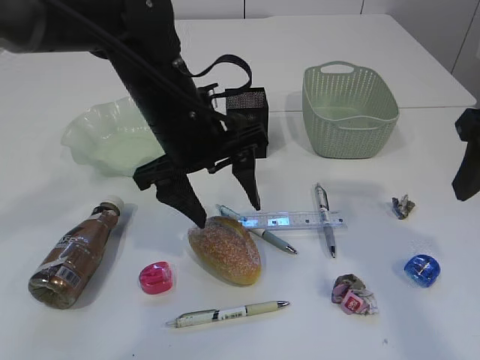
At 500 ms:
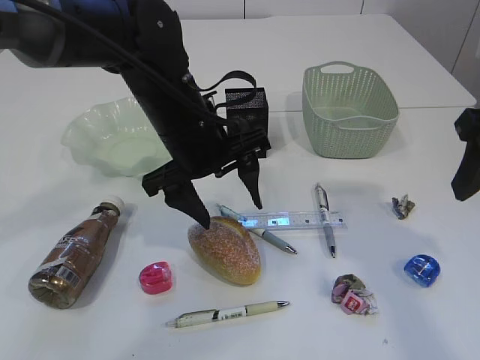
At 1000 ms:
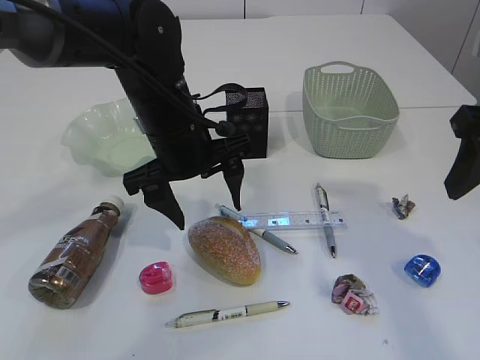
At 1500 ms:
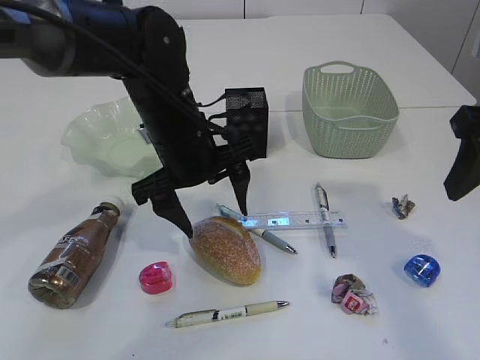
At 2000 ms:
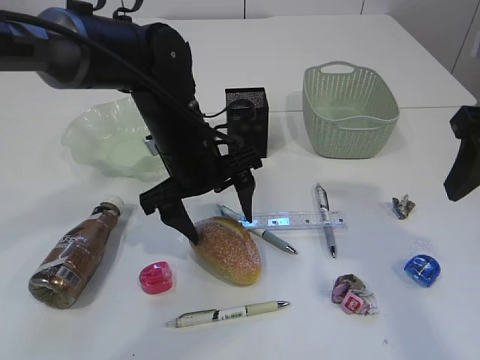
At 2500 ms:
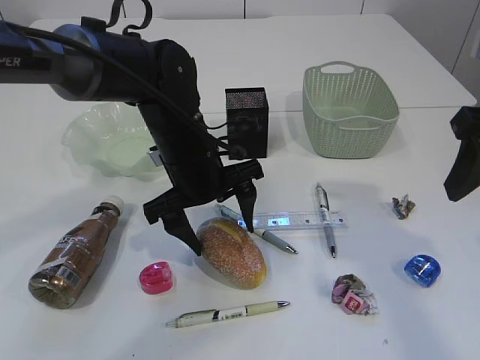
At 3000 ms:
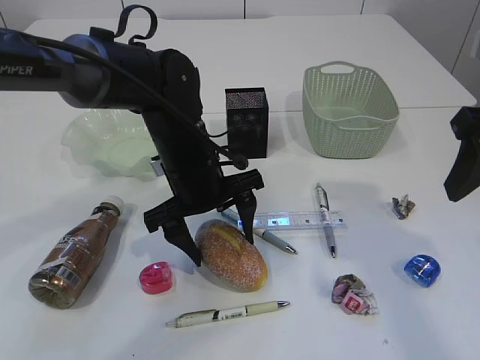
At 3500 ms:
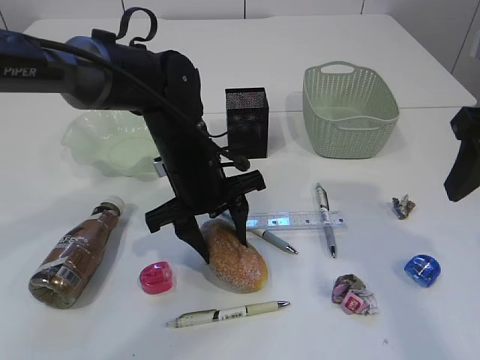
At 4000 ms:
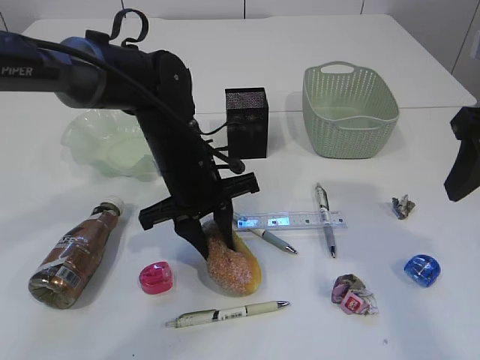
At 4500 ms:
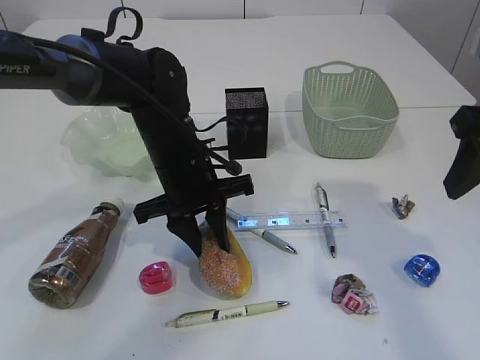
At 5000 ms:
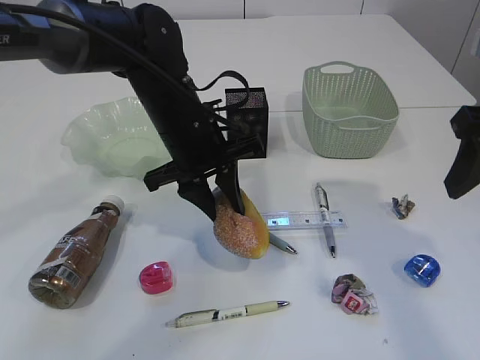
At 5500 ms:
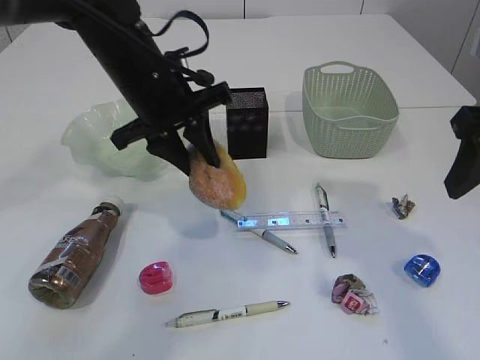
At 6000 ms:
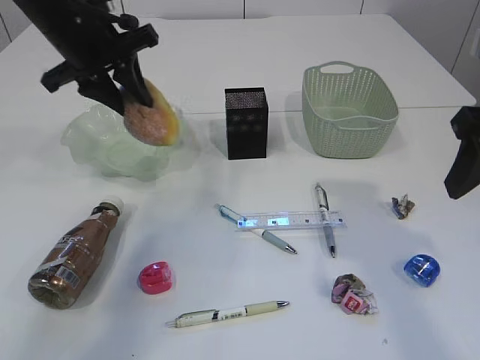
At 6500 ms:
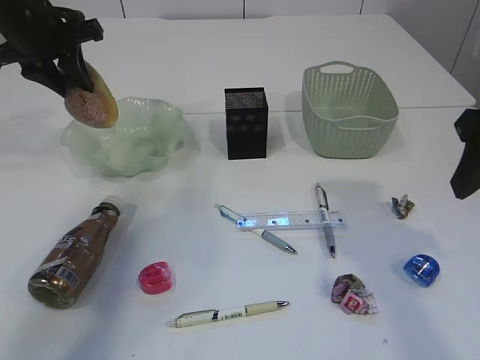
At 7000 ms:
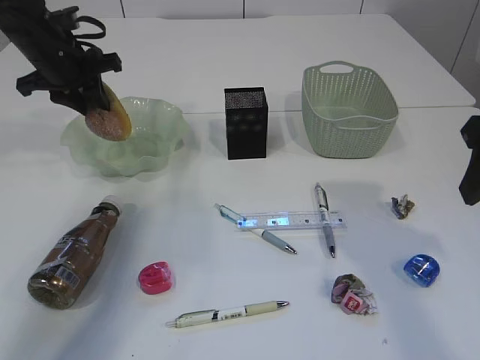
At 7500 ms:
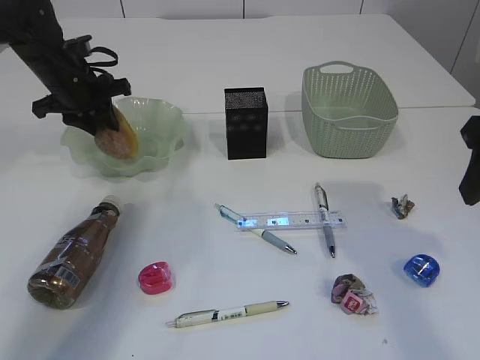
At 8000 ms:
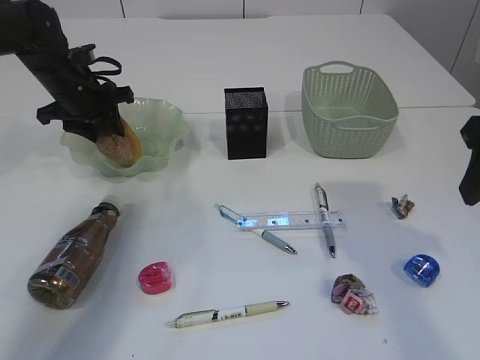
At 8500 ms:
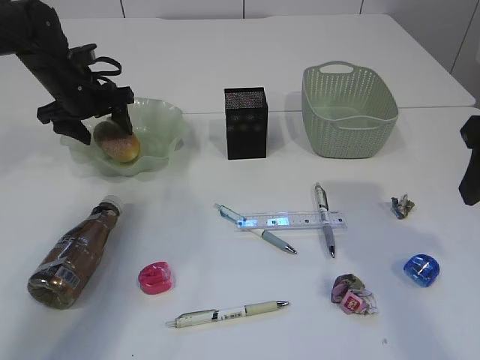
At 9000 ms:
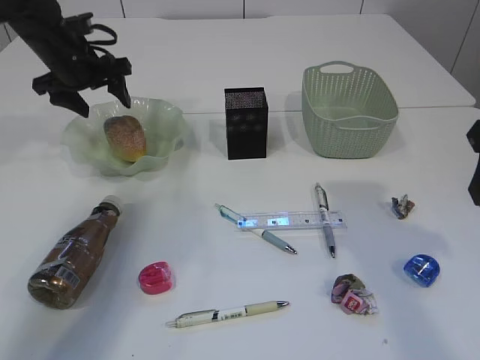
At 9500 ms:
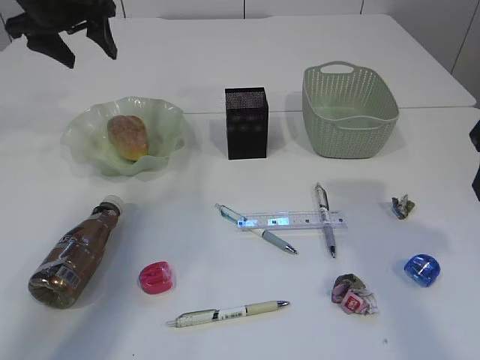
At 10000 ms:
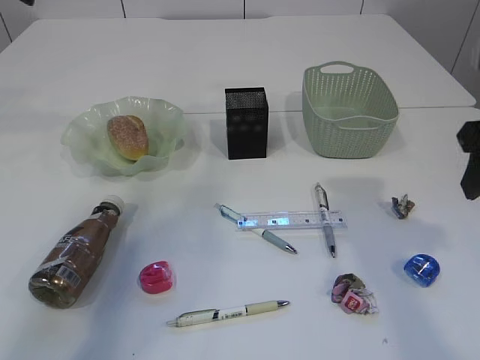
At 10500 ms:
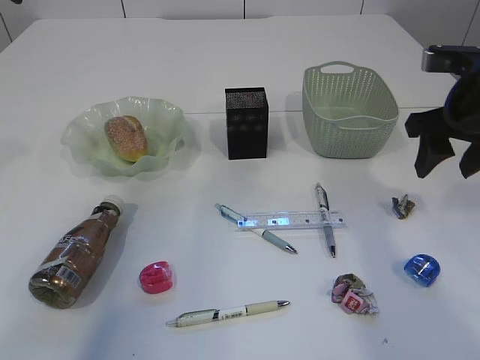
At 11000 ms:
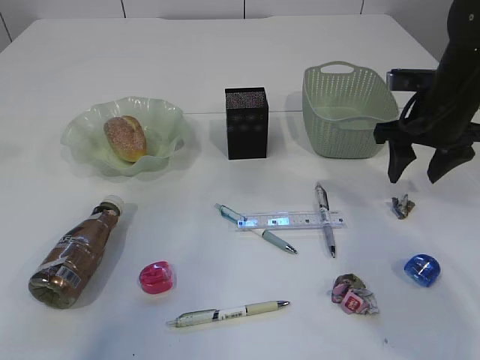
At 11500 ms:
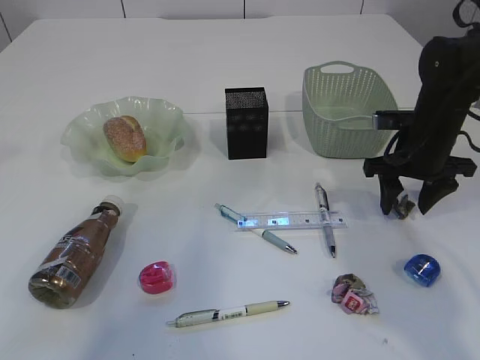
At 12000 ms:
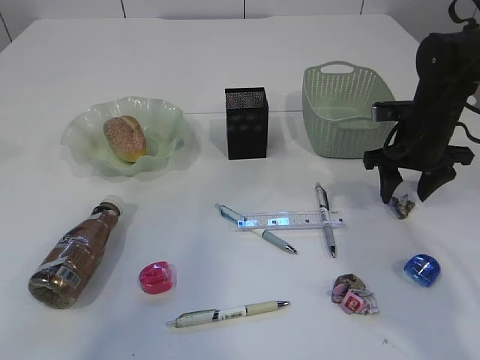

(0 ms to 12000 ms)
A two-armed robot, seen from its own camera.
Step, 6000 ms - 9000 ms: place the bread in the plate.
0 ms - 2000 ms: The left gripper moves some 5 cm.
2000 ms - 4000 ms: The left gripper closes its fingers.
4000 ms - 6000 ms: The left gripper goes roughly 20 cm upward, to the left and forward.
6000 ms - 8000 ms: The left gripper goes approximately 15 cm downward, forward and to the left.
8000 ms - 10000 ms: The left gripper is displaced upward by roughly 20 cm, and opens up.
10000 ms - 12000 ms: The right gripper shifts about 20 cm forward and downward. The left gripper shifts some 10 cm backward.

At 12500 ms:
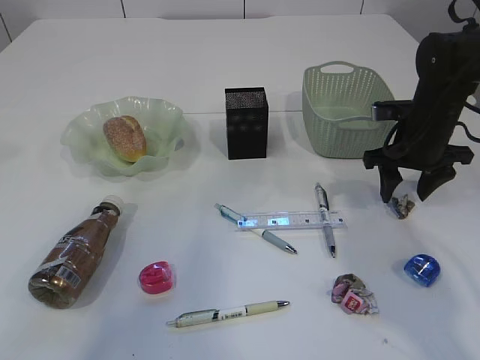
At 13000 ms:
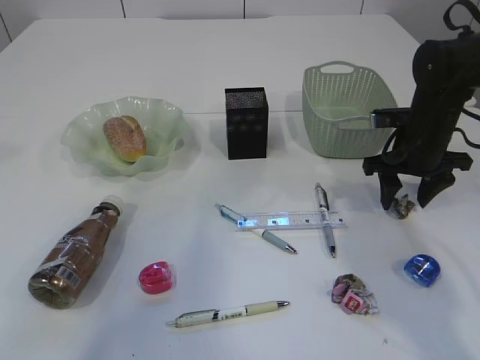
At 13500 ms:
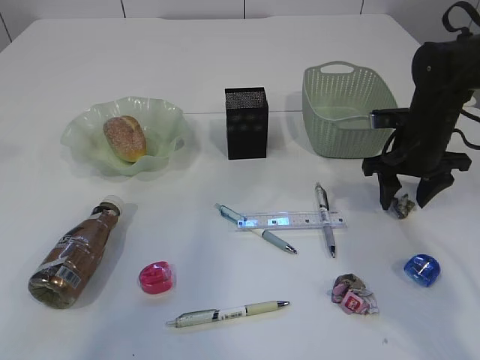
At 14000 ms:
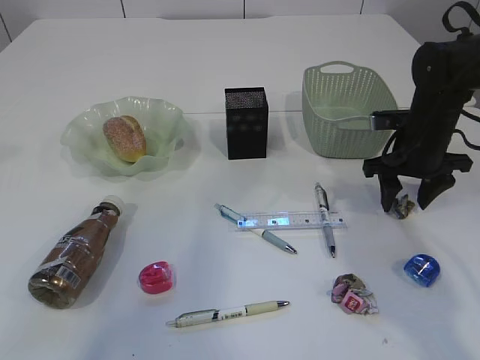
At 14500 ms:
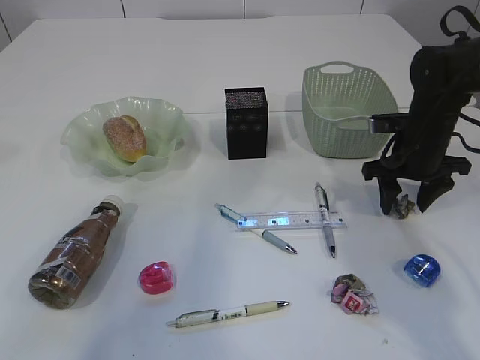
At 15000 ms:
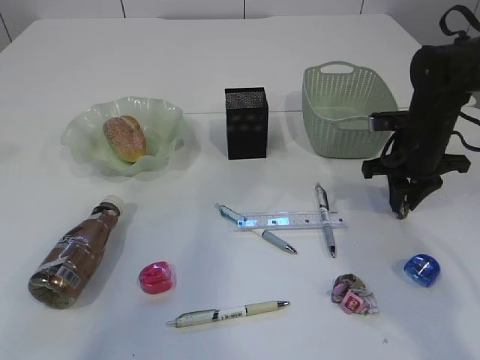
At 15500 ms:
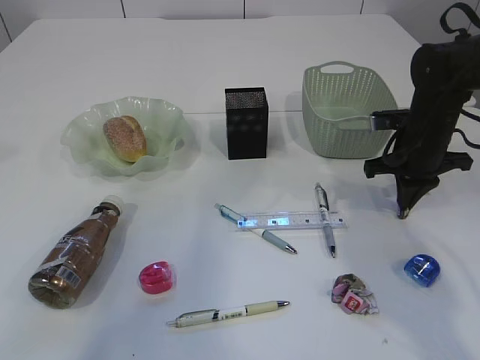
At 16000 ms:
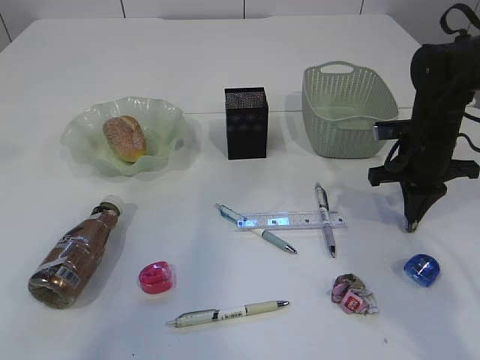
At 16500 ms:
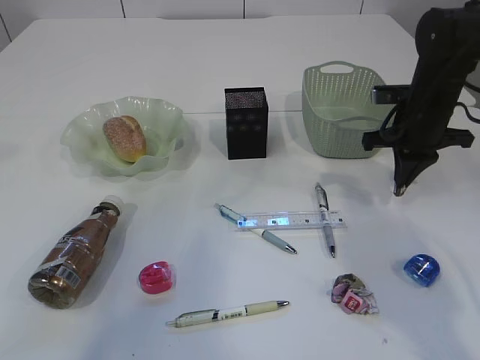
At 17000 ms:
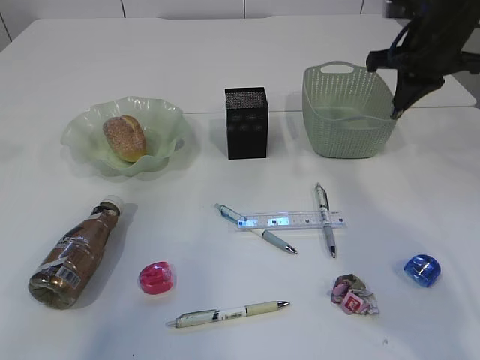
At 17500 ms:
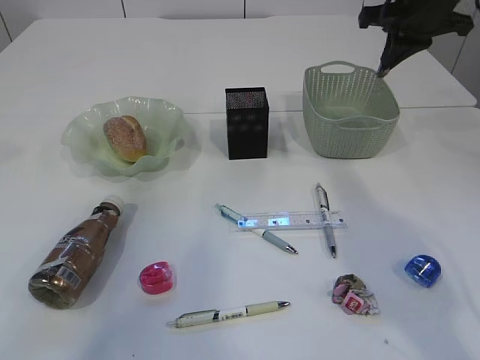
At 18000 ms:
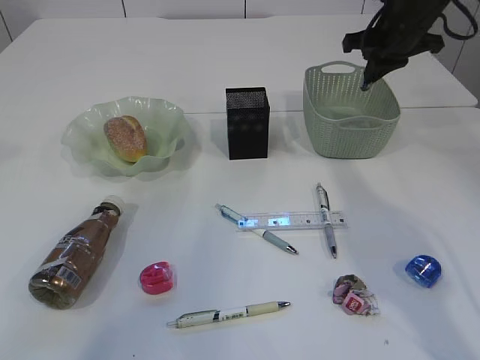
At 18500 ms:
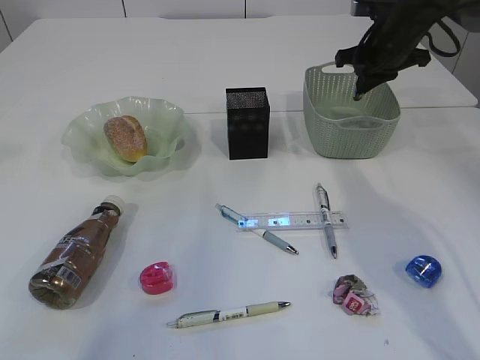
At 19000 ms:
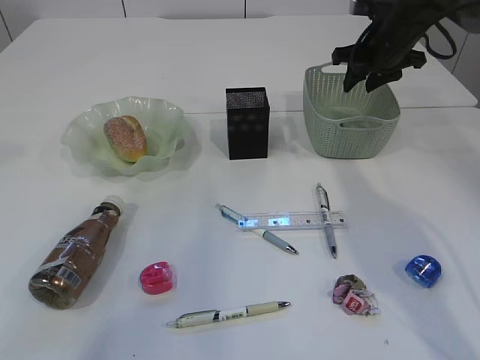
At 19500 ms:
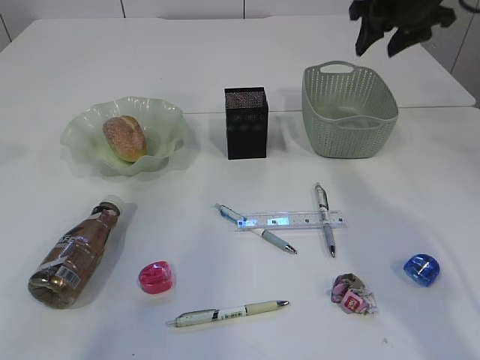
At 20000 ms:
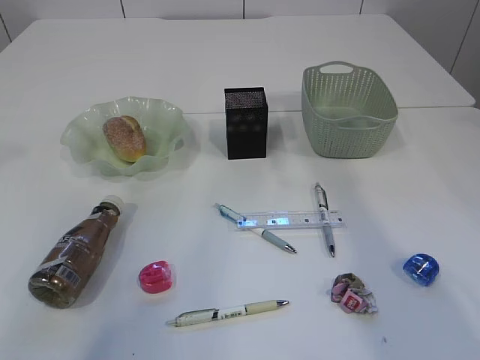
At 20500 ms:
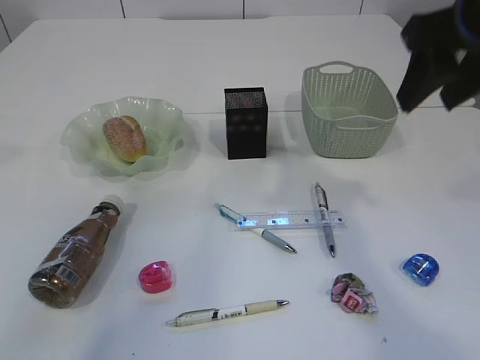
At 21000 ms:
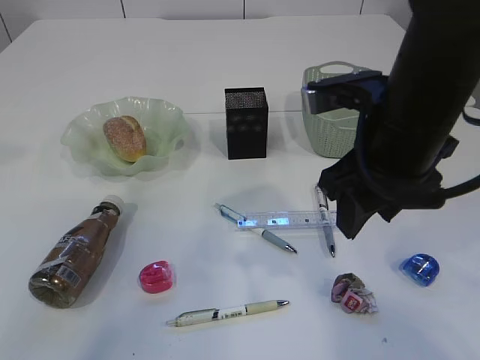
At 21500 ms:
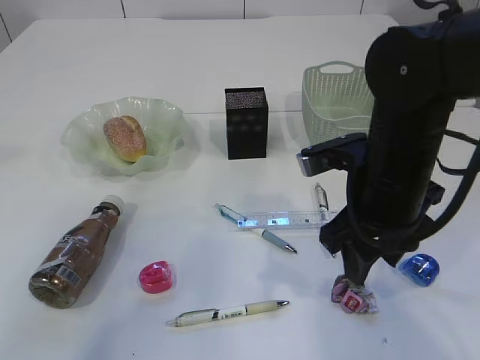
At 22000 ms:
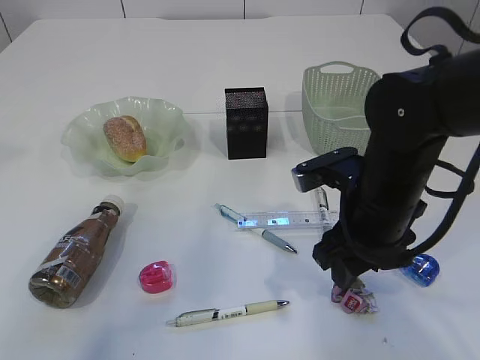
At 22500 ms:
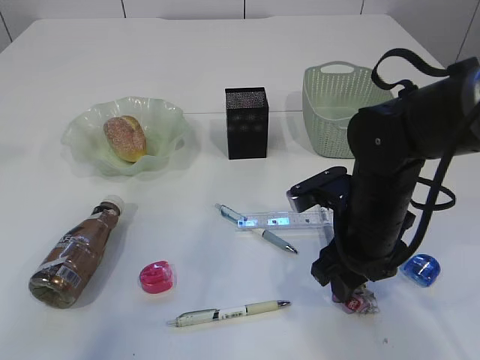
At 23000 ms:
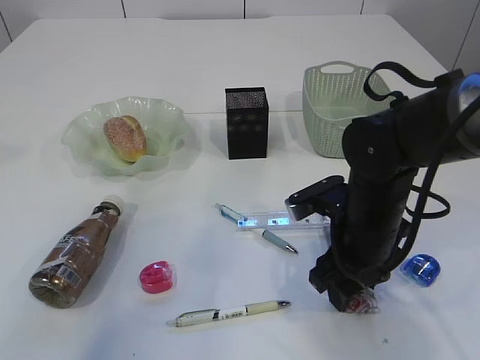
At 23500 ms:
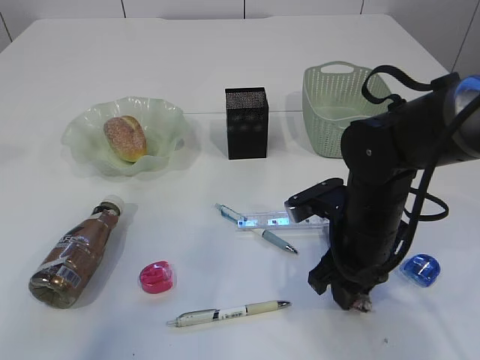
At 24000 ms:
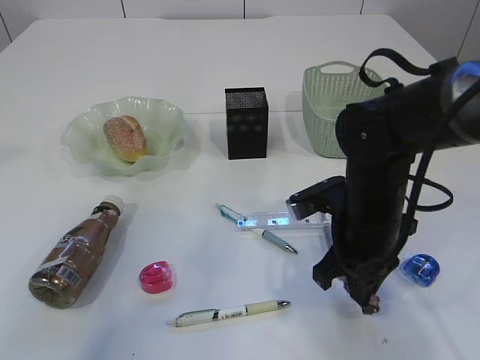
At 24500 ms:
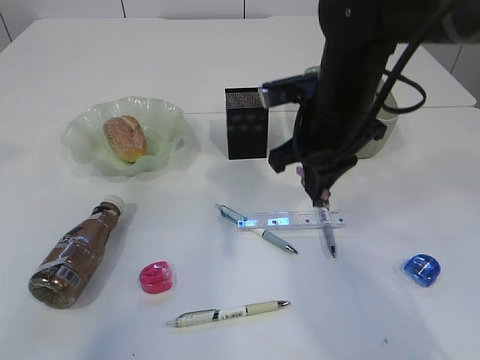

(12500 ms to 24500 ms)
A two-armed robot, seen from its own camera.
Step, 12500 ms - 16500 ms: Pick up the waste paper.
Step, 17000 ms - 19000 ms: Place the waste paper in the basket.
Step, 19500 ms - 24000 ms: Pick up the waste paper.
12500 ms - 14500 ms: The grippers move only a little.
14500 ms - 16500 ms: The right gripper closes its fingers.
16500 ms - 18500 ms: The right gripper shifts some 10 cm forward and upward.
18500 ms - 20500 ms: The right gripper moves backward and upward, about 25 cm, and opens.
20500 ms - 22500 ms: The right gripper shifts some 25 cm downward.
22500 ms - 24500 ms: The right gripper shifts about 10 cm upward and forward, and closes.

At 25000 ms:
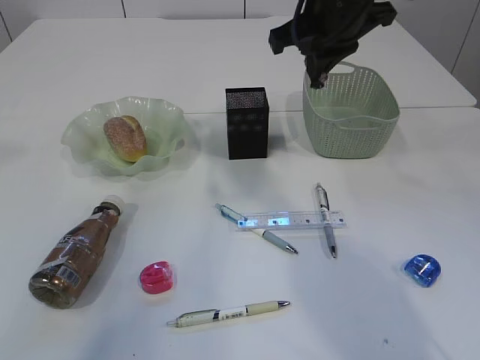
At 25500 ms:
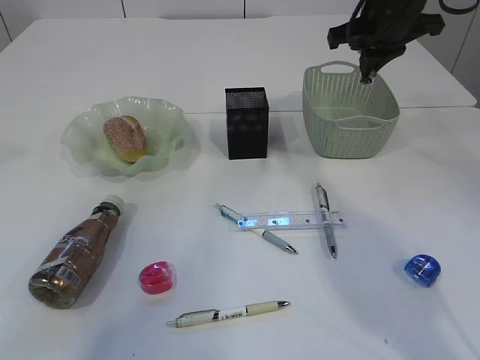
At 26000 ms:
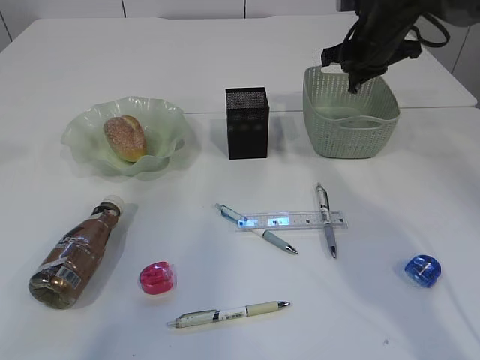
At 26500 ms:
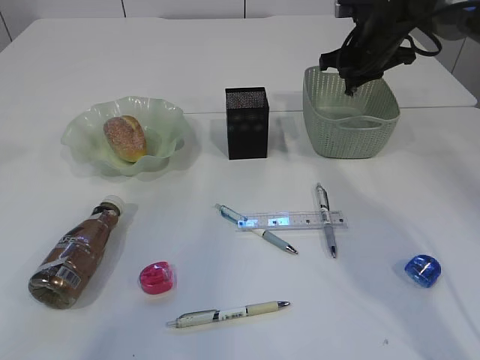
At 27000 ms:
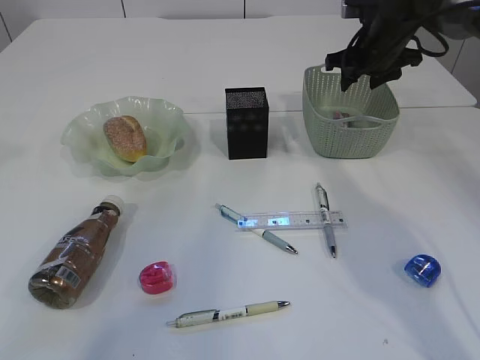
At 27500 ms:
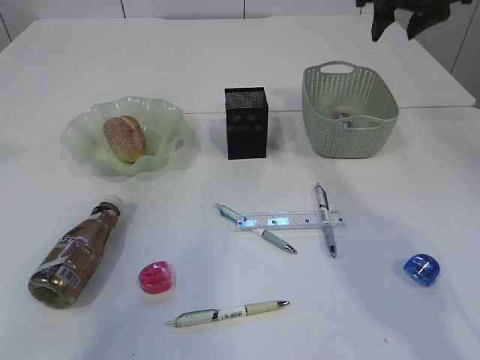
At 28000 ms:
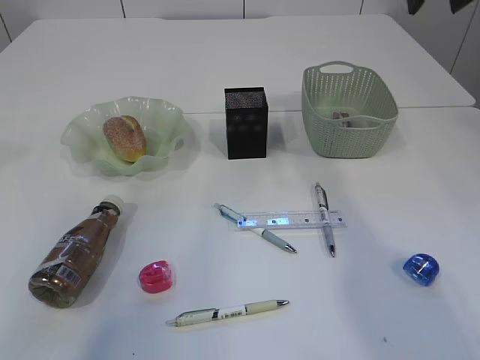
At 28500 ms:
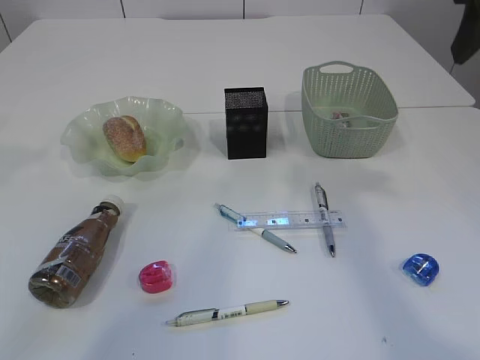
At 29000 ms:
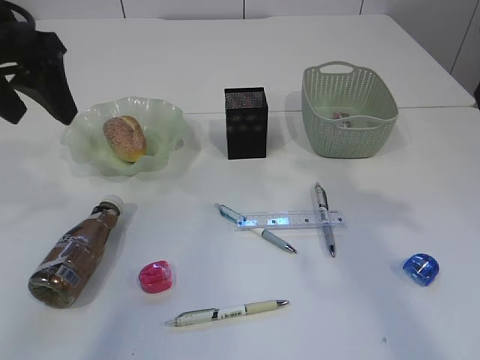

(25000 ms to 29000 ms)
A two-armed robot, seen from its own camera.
Step, 25000 ms - 27000 ms: Place the waste paper in the basket.
25000 ms - 27000 ms: The right gripper moves forward, to the right and downward, some 20 cm, and opens.
27000 ms - 29000 ms: The left gripper heads downward, covering some 10 cm. Meanwhile the right gripper heads backward and upward, covering approximately 30 cm.
